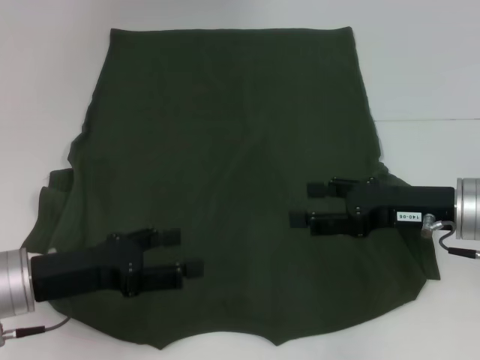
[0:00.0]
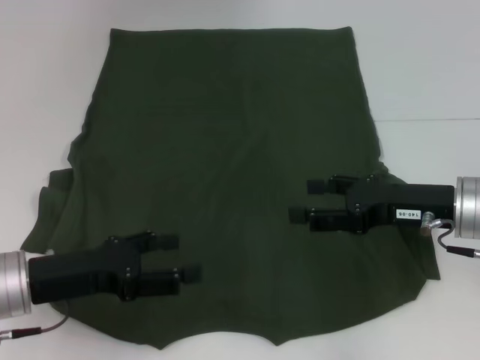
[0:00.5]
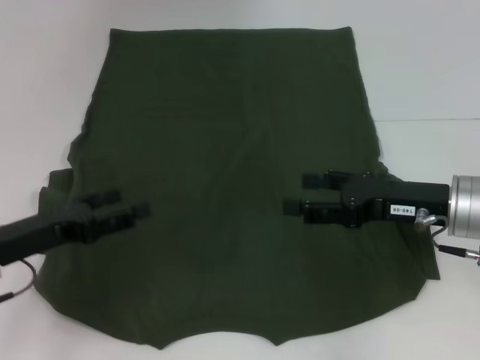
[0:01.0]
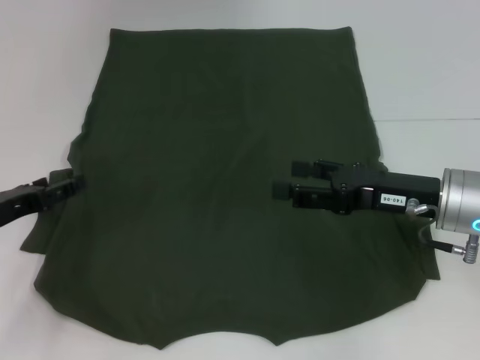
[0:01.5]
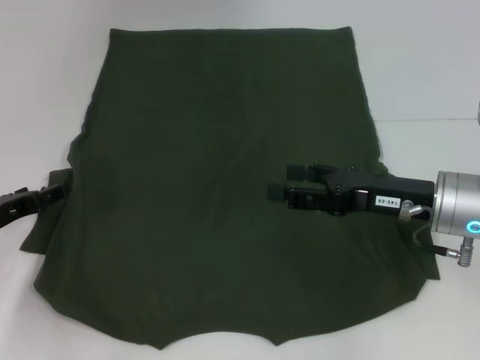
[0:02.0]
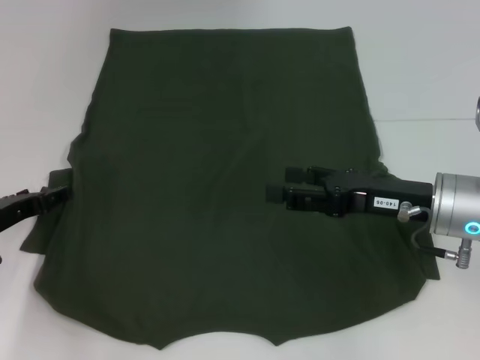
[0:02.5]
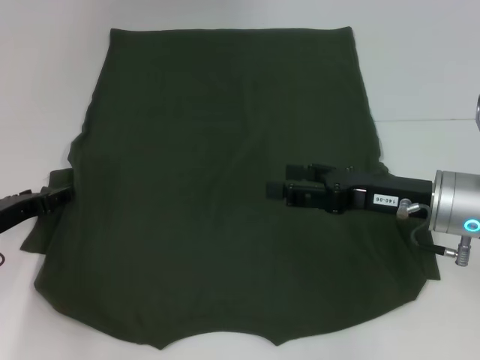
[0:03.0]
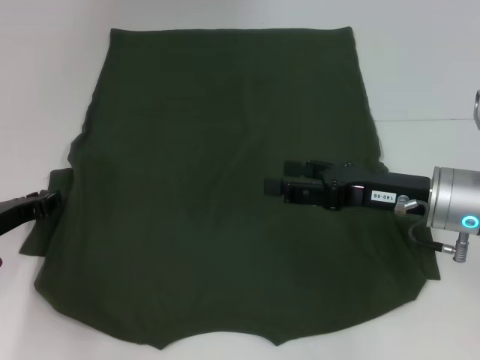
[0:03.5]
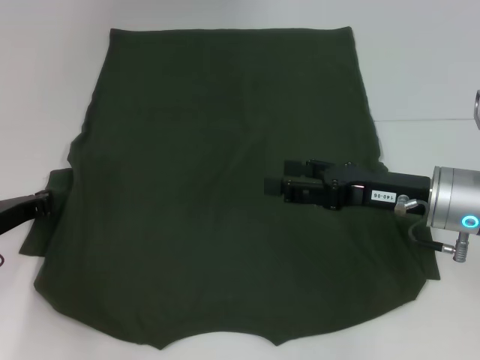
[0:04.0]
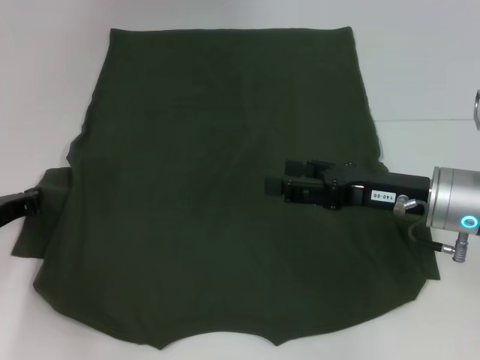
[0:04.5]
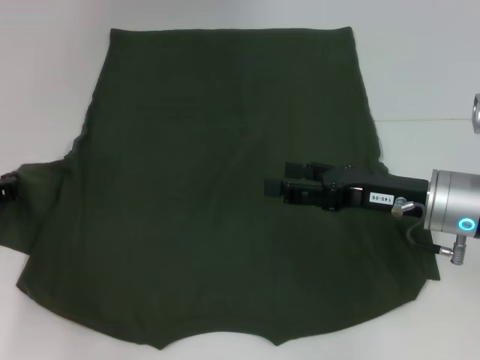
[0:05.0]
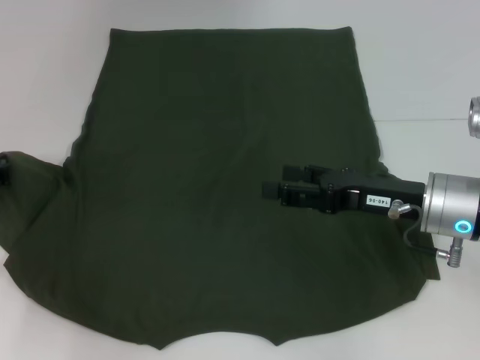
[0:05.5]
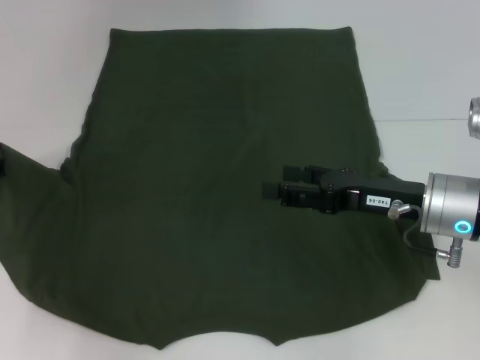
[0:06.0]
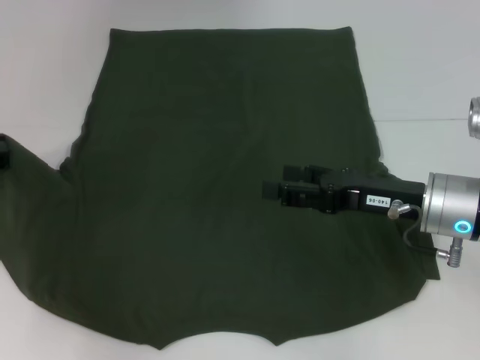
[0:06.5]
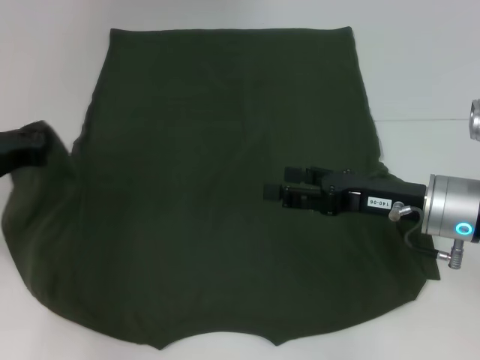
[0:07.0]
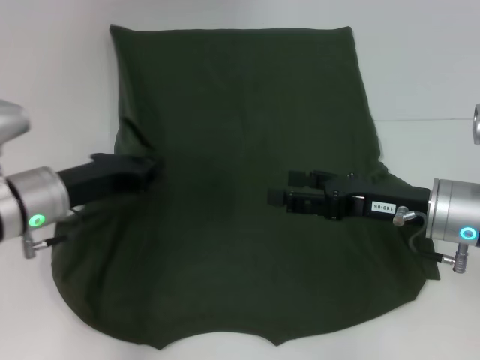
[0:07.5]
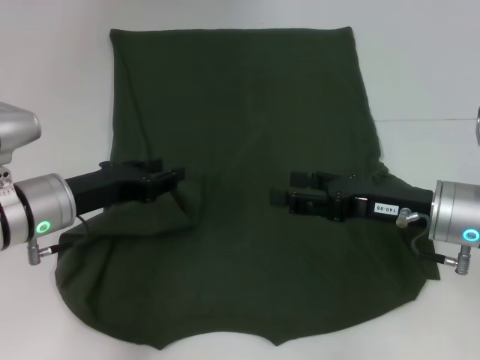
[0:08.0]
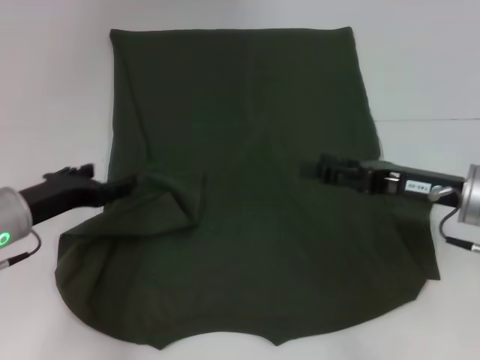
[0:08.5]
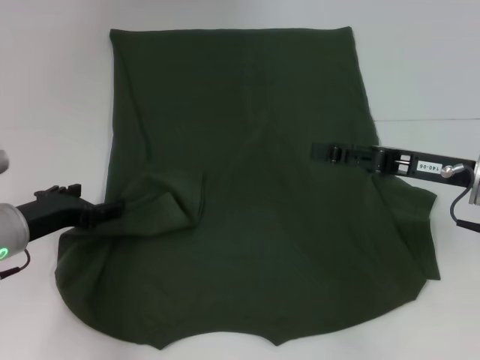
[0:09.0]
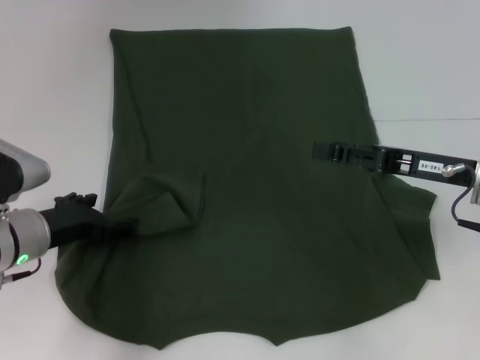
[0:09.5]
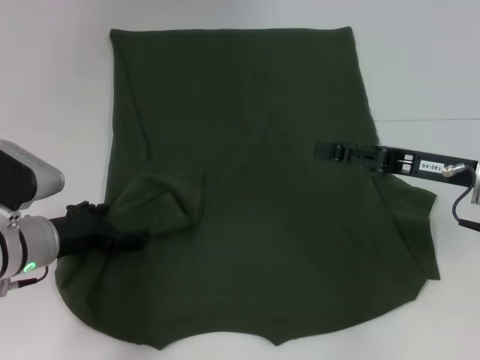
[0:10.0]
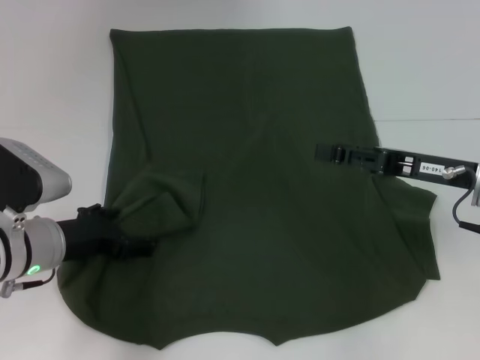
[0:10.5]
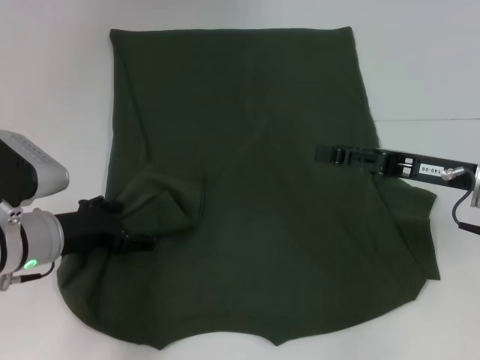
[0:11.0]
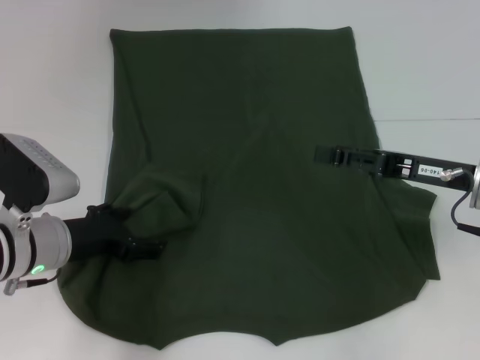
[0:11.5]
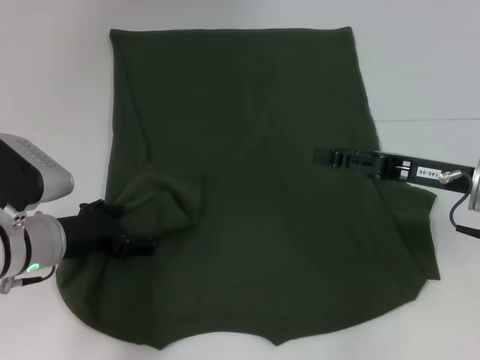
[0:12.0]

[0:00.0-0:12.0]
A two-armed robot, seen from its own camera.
0:00.0 to 0:02.0: The left gripper goes some 10 cm to the left and forward.
0:02.0 to 0:04.0: The left gripper closes up.
0:04.0 to 0:06.0: The left gripper moves some 5 cm.
0:06.0 to 0:08.0: The left gripper shifts some 10 cm to the right.
0:08.0 to 0:10.0: The left gripper opens its fingers. The right gripper moves approximately 5 cm.
0:10.0 to 0:12.0: The grippers stay close to where they were, moving slightly.

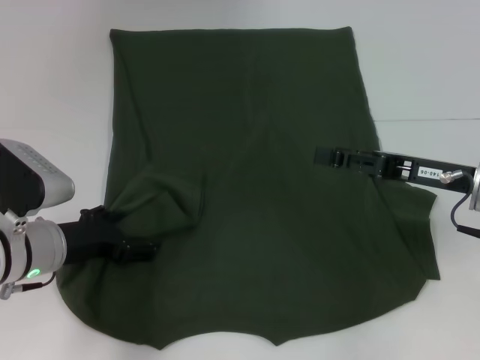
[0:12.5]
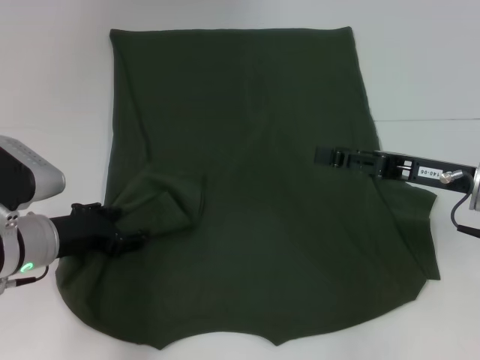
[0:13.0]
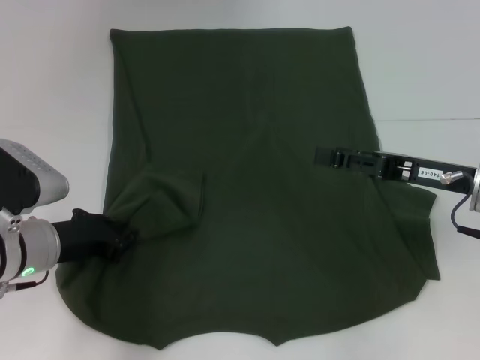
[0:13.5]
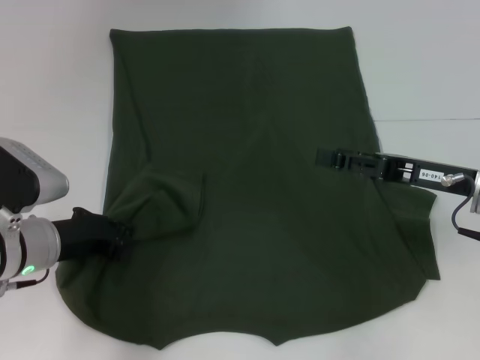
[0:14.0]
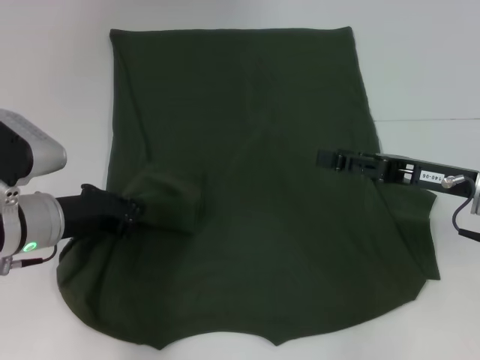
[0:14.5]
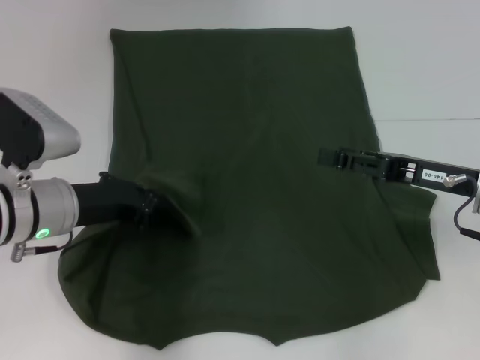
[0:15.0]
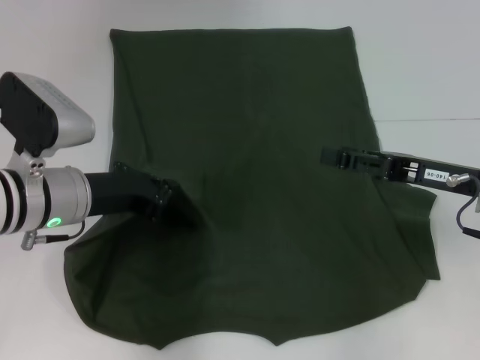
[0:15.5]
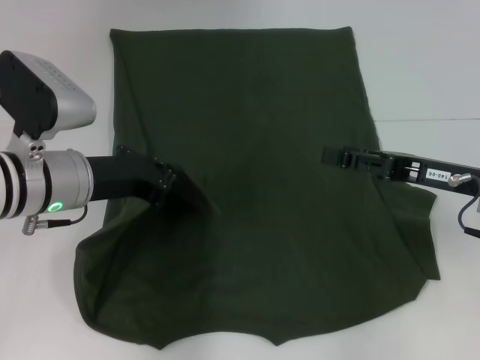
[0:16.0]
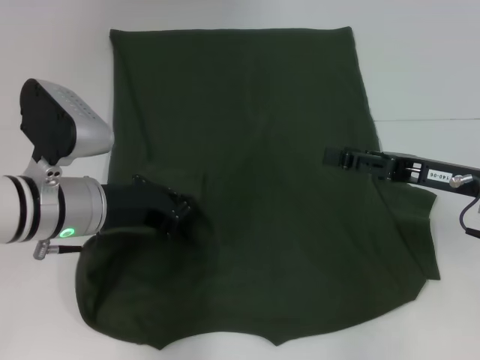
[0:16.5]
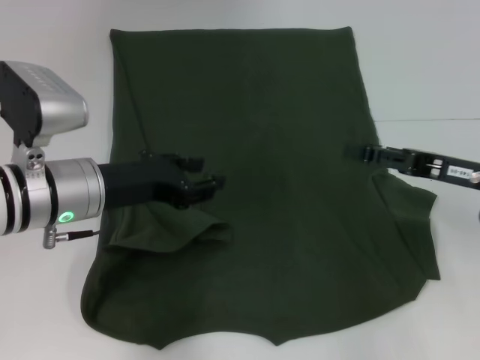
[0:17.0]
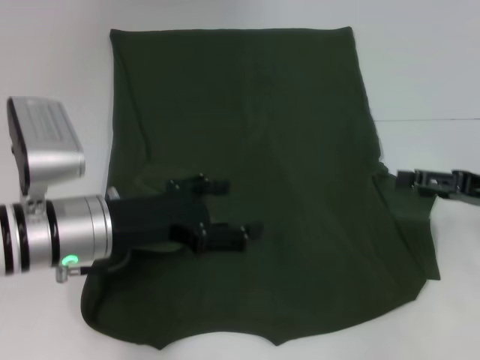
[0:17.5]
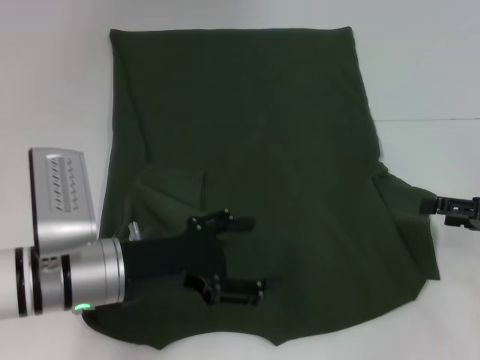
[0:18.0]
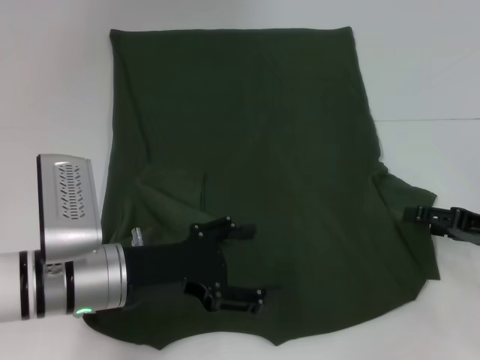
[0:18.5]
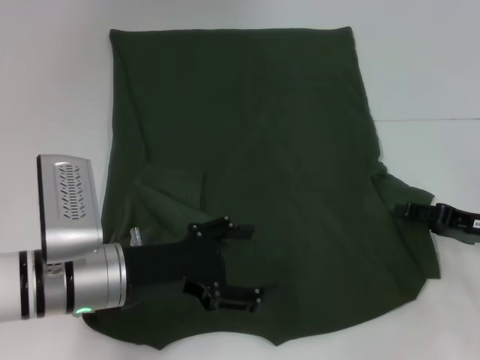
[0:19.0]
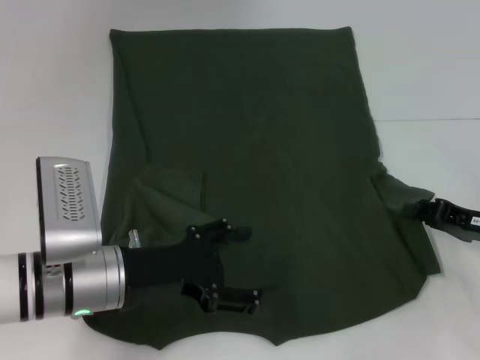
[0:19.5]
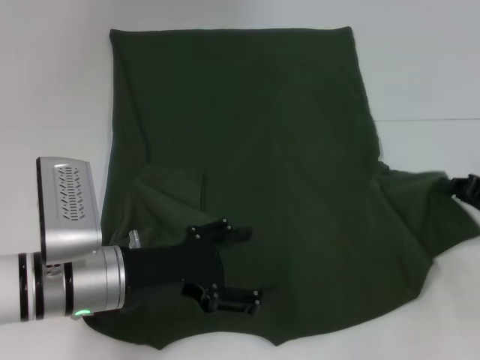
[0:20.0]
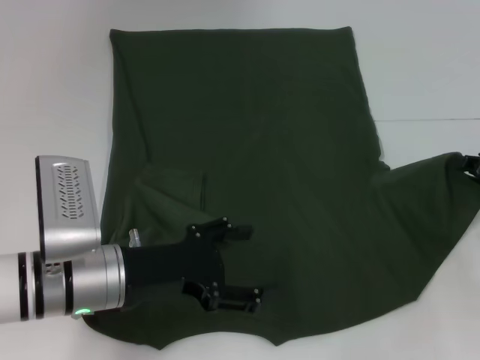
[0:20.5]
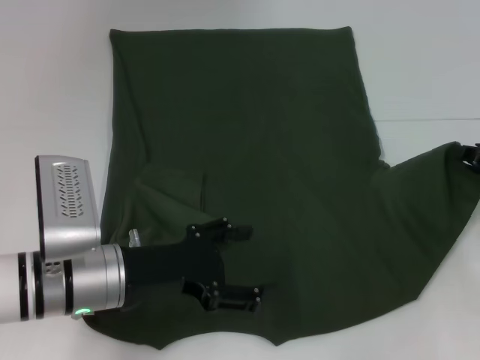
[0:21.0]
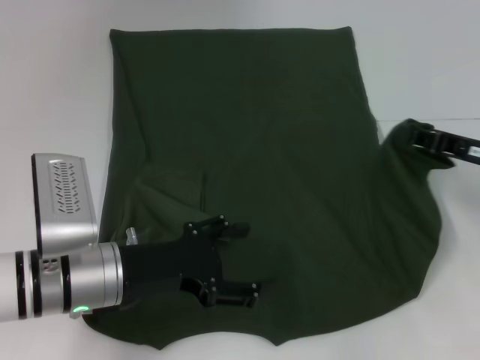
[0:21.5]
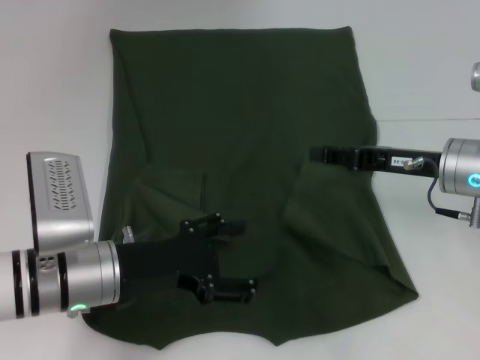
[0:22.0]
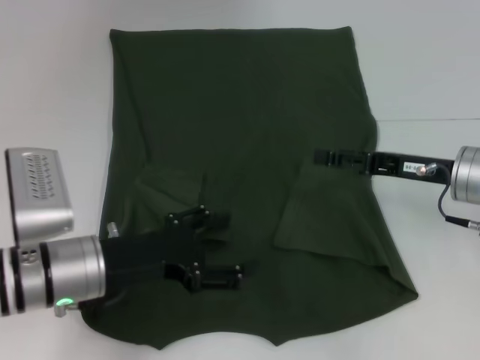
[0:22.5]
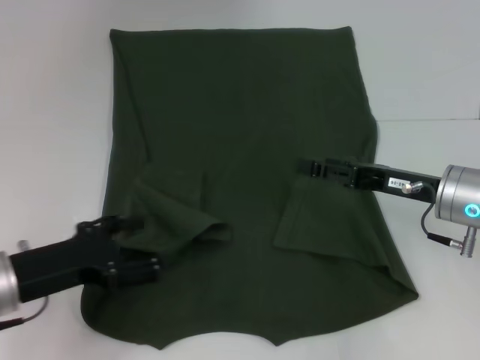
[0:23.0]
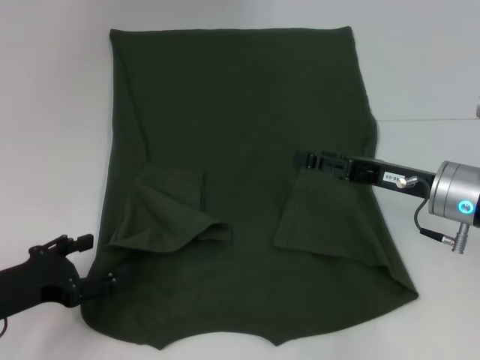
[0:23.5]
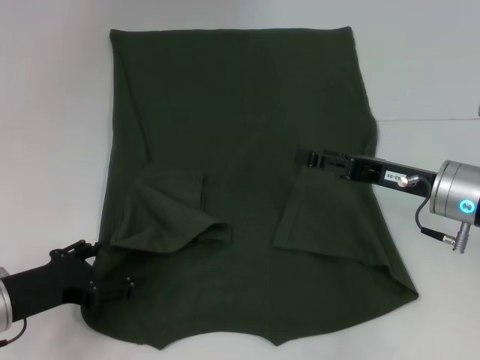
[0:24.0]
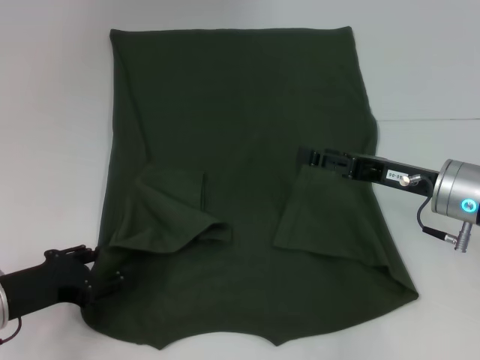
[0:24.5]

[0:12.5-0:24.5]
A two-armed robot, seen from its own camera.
Step, 0:12.5 to 0:17.0: Fold the bottom left sleeve with your left hand.
Step, 0:17.5 to 0:22.5: Fold the bottom right sleeve with your right hand.
0:12.5 to 0:14.5: The left gripper closes up.
0:14.5 to 0:16.5: The left gripper moves approximately 5 cm.
0:16.5 to 0:18.5: The right gripper moves to the right, some 5 cm; the left gripper heads backward, covering approximately 5 cm, and opens.
0:18.5 to 0:20.5: The right gripper closes up.
0:20.5 to 0:22.5: The right gripper is displaced to the left by about 10 cm, and opens up.
0:22.5 to 0:24.5: The left gripper travels to the left by approximately 10 cm.

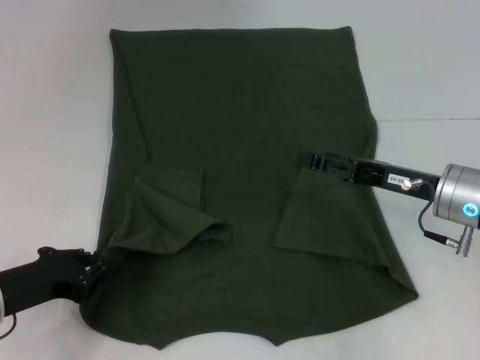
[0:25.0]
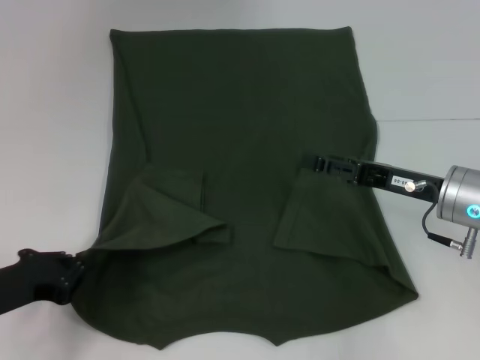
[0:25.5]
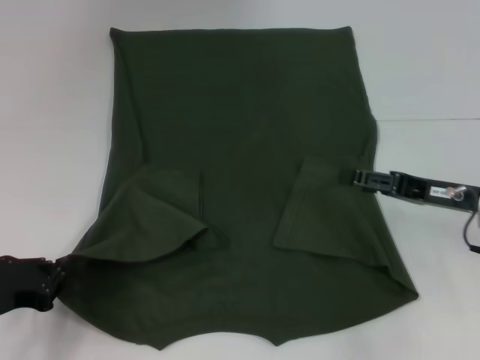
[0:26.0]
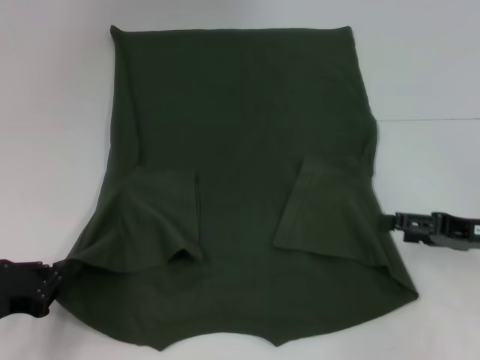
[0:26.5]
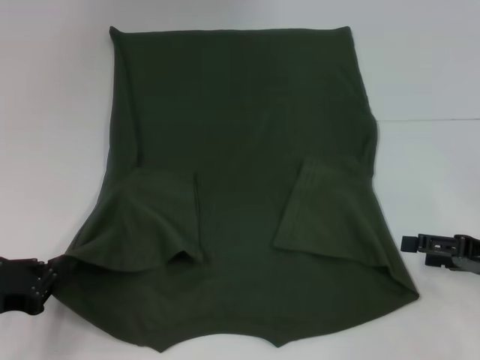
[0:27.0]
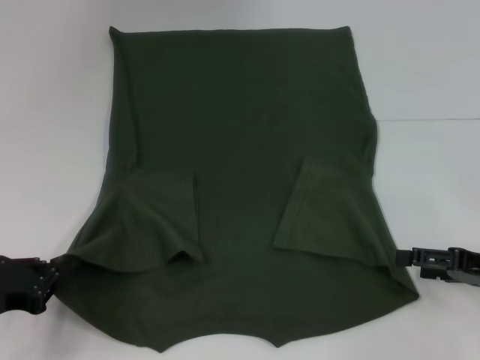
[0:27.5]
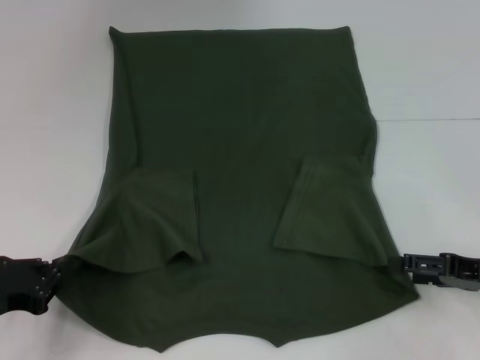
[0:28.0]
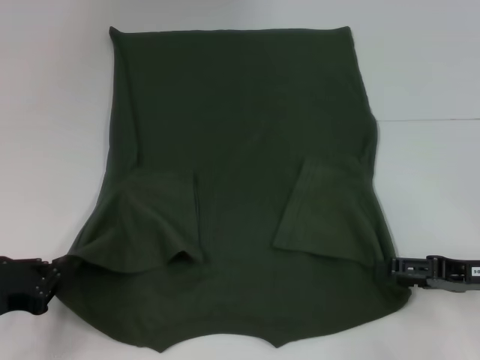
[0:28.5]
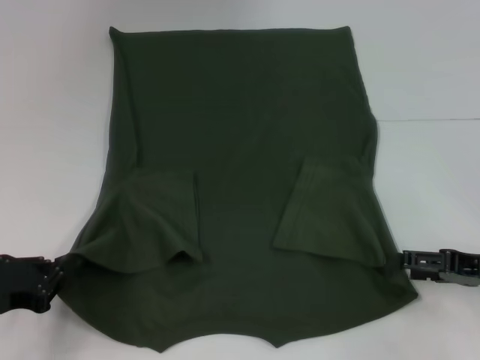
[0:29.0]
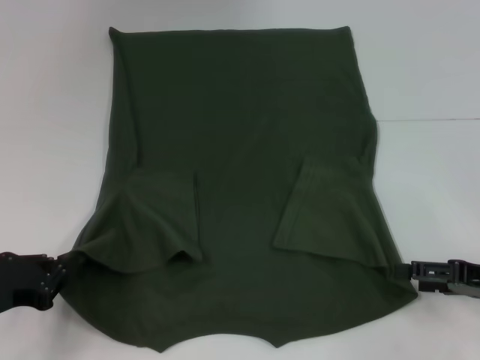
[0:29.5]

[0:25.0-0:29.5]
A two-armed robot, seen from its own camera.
0:25.0 to 0:27.0: The right gripper heads to the right and backward, covering some 10 cm.
0:27.0 to 0:29.5: The grippers move only a little.
